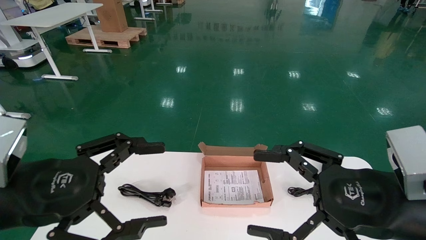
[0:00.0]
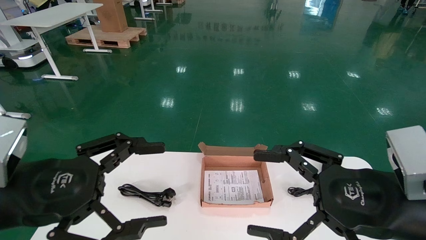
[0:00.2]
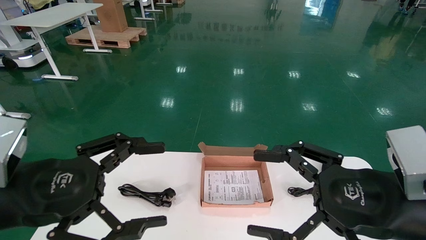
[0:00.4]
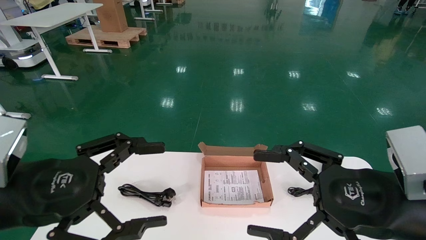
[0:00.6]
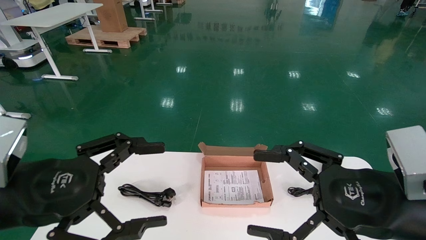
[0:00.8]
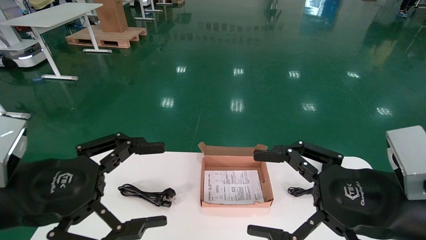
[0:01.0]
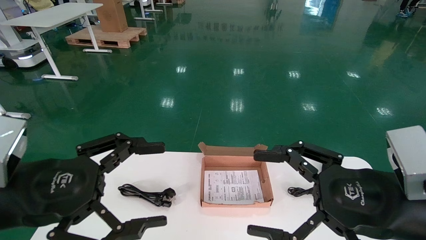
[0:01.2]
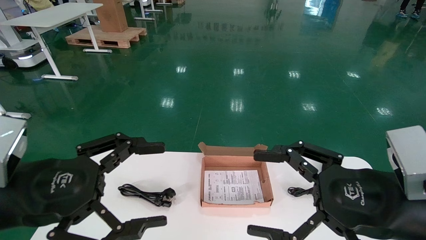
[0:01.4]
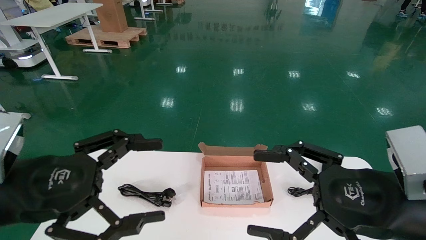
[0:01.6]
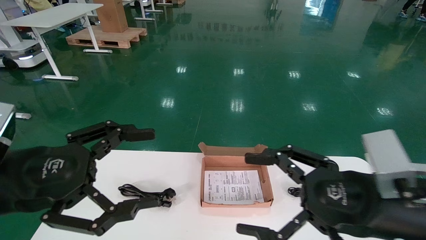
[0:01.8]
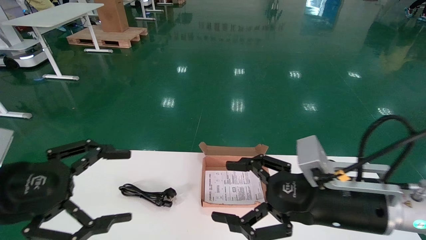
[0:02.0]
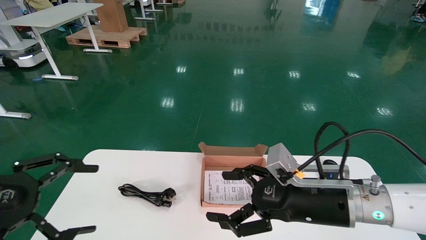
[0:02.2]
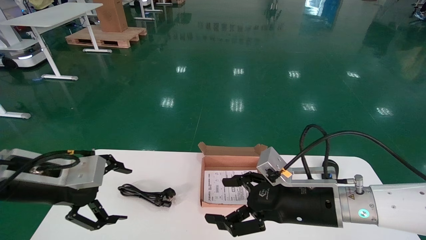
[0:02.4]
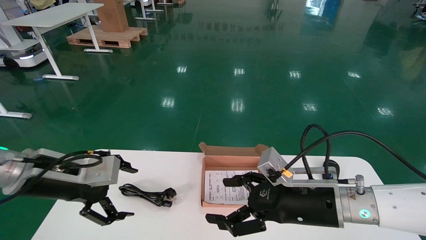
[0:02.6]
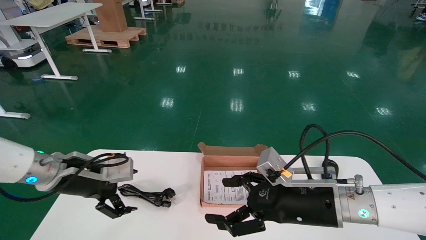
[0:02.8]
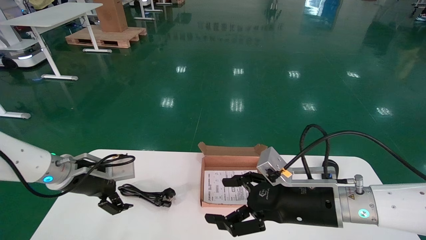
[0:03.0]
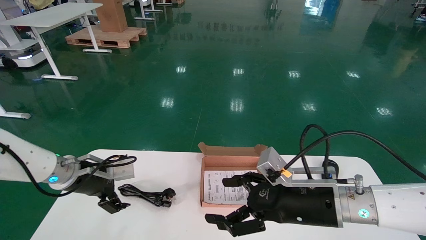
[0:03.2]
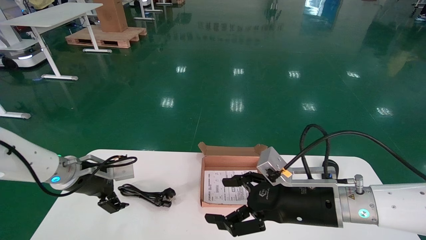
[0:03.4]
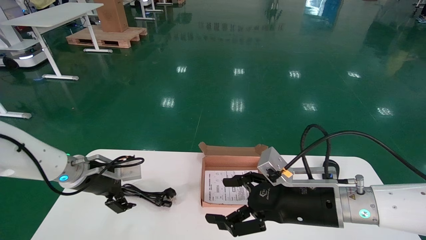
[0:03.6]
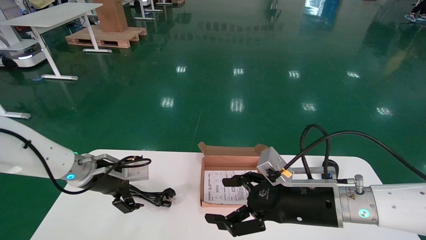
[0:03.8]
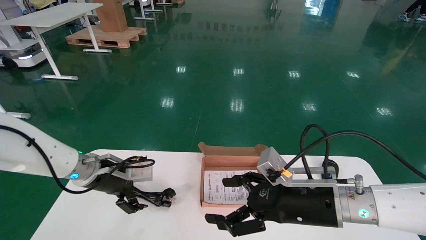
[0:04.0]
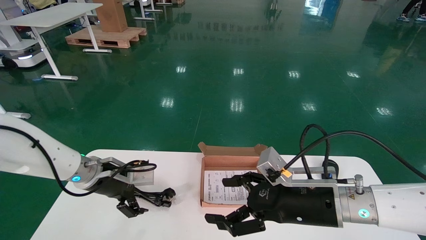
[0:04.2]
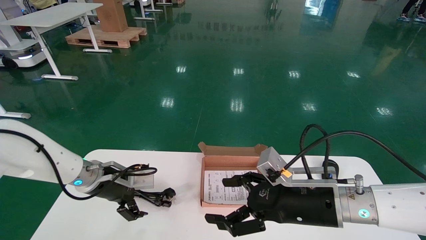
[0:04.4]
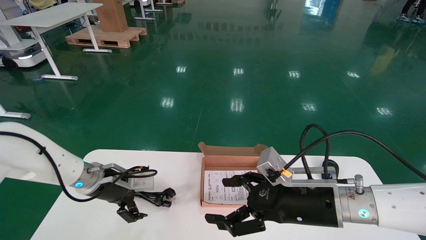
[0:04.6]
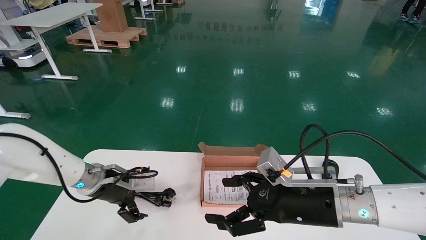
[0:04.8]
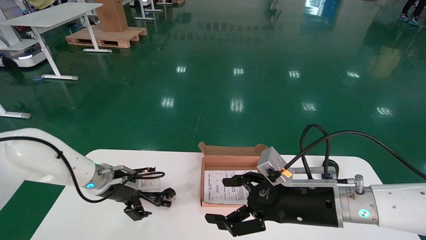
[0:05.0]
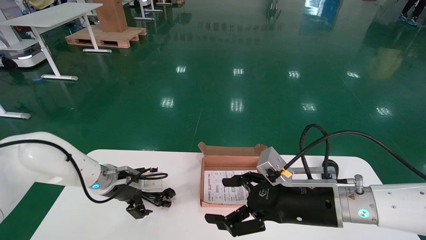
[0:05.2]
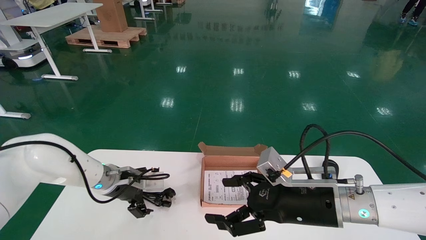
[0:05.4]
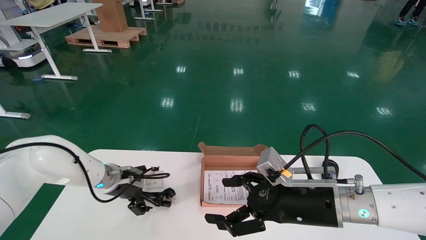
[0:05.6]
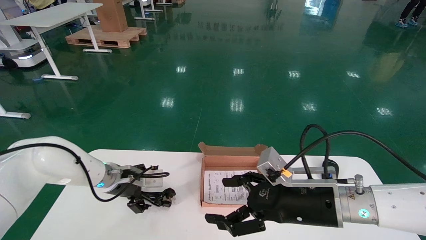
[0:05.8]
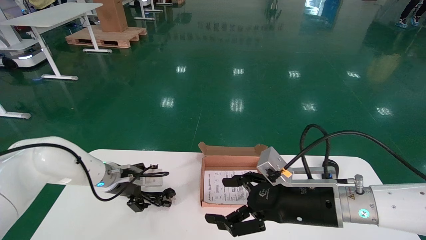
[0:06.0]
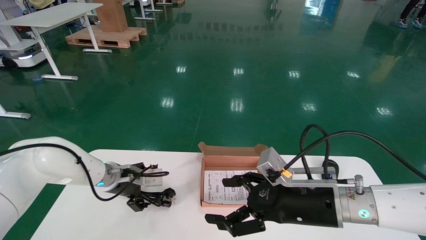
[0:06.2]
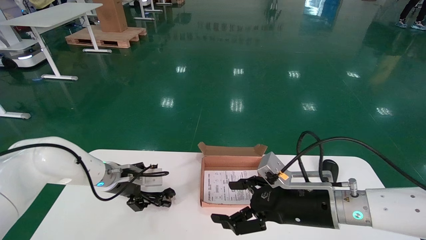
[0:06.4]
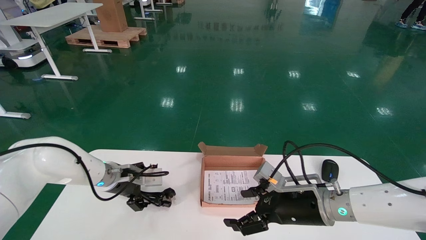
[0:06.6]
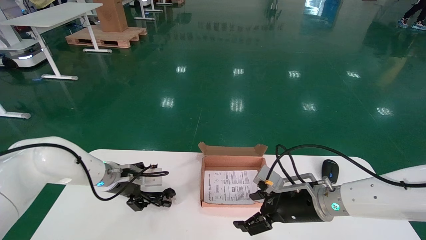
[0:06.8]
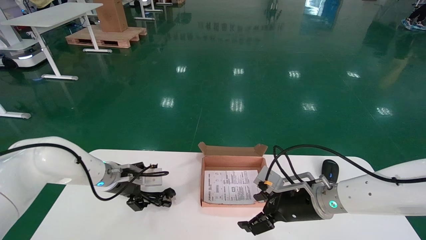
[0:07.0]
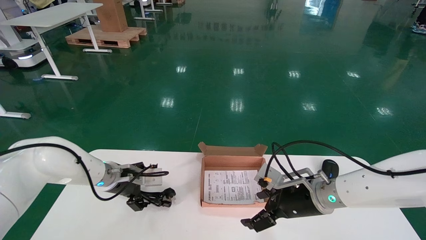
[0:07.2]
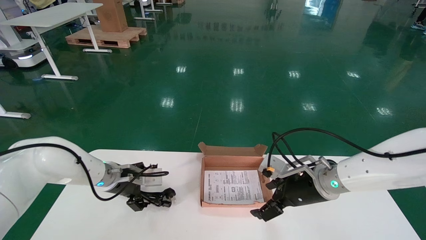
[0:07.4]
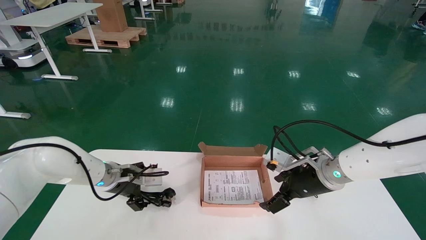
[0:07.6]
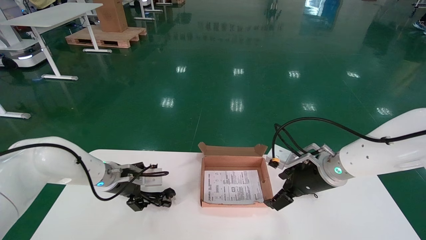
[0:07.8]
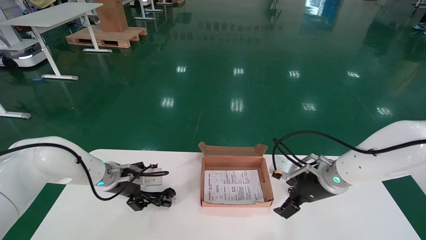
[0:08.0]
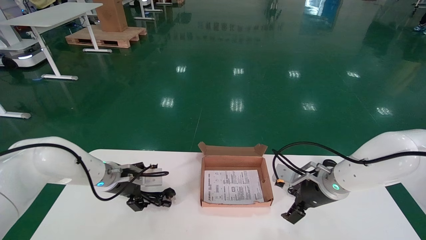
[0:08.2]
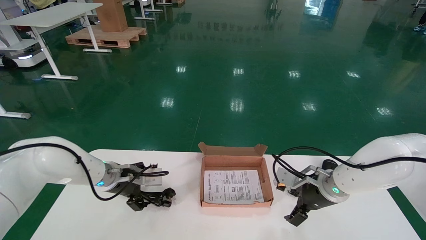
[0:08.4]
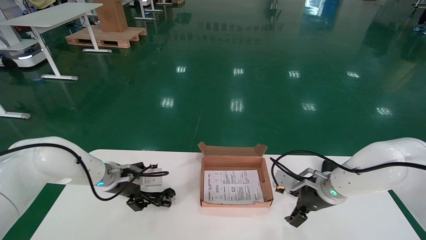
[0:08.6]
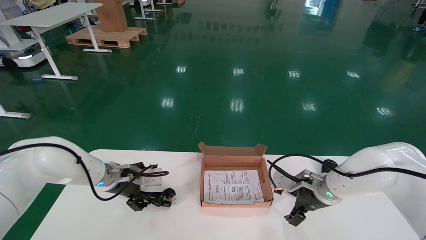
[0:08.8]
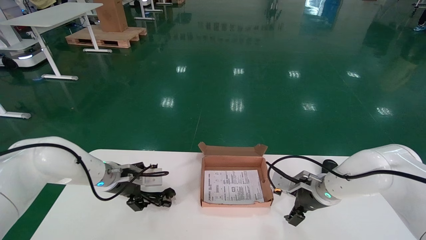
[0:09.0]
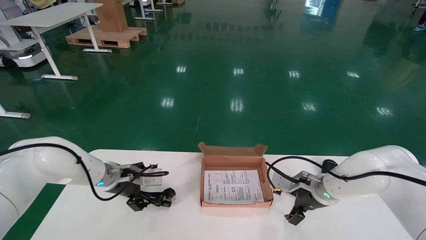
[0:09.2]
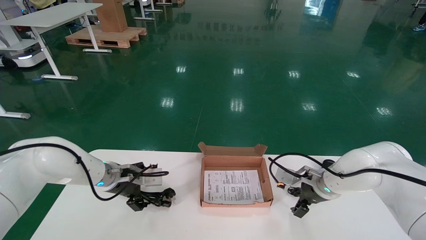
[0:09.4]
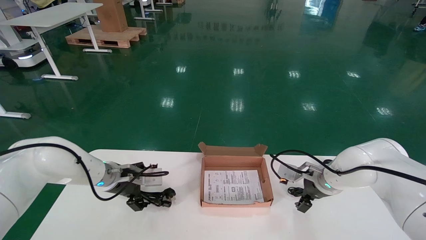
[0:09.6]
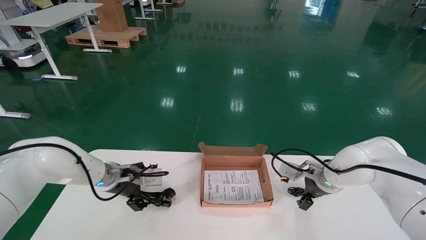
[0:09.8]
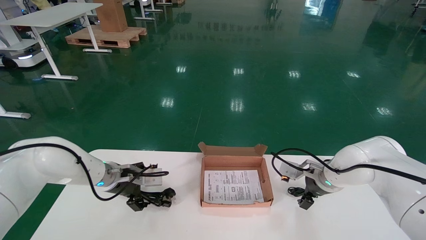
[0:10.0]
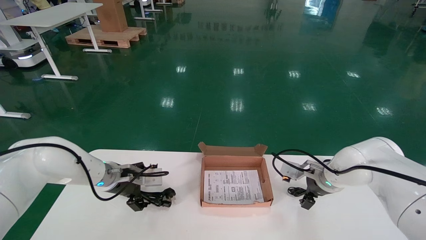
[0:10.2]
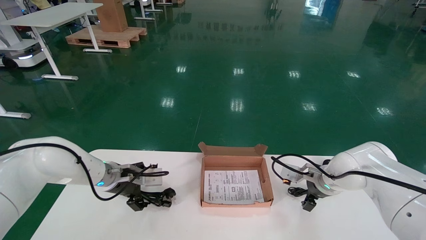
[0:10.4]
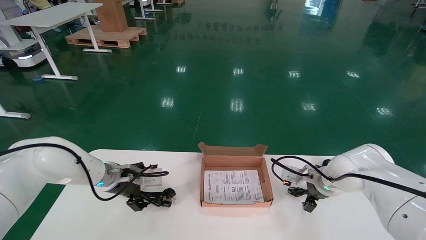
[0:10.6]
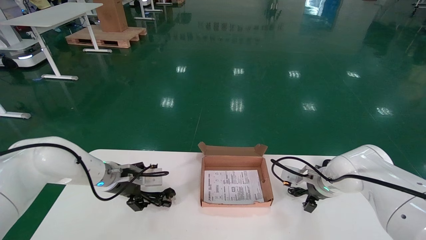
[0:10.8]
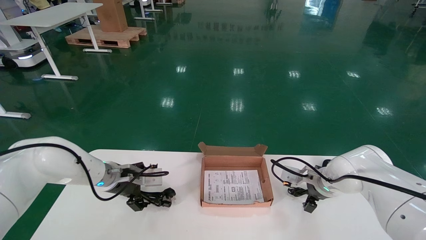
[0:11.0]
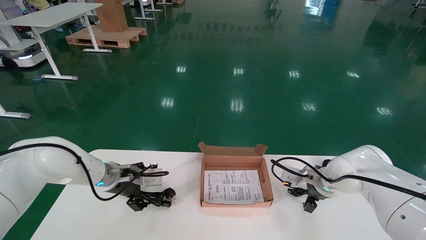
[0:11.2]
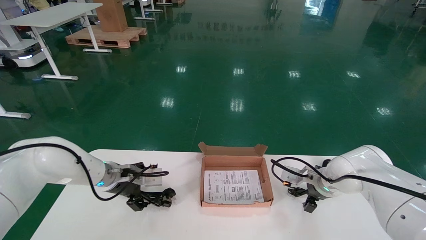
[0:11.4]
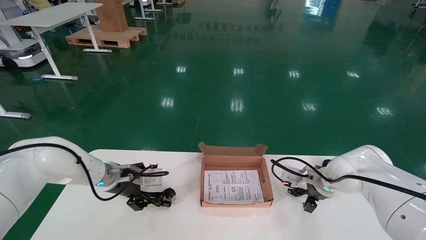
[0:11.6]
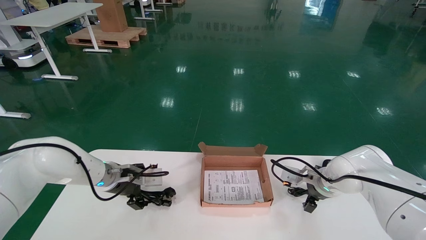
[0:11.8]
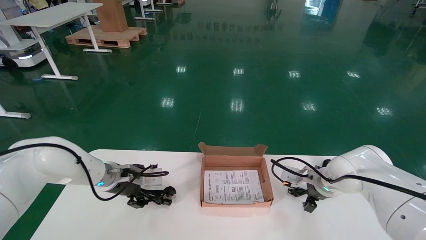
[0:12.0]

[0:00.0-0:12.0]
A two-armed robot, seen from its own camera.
0:00.0 to 0:01.6: Both grippers stay about where they are.
0:01.6 to 0:03.0: The right gripper travels forward, downward and to the left by some 15 cm; the left gripper shifts about 5 cm to the left.
0:03.0 to 0:04.4: The left gripper moves forward and downward, approximately 20 cm.
0:04.4 to 0:06.0: The left gripper moves roughly 5 cm.
0:06.0 to 0:07.6: The right gripper moves approximately 5 cm.
0:07.6 to 0:09.0: The right gripper goes roughly 5 cm forward.
0:09.0 to 0:10.4: The right gripper shifts by some 5 cm.
0:10.4 to 0:12.0: The grippers make only small movements.

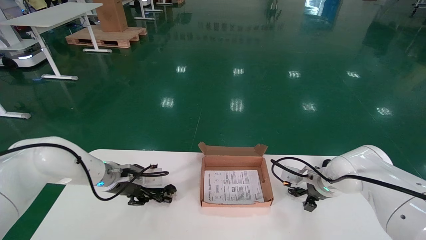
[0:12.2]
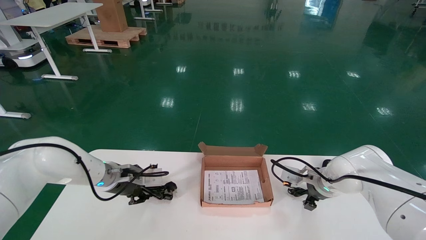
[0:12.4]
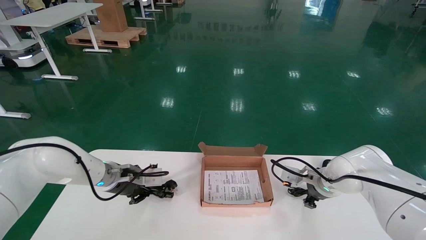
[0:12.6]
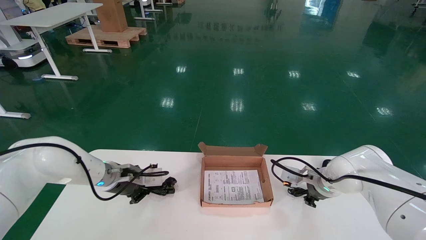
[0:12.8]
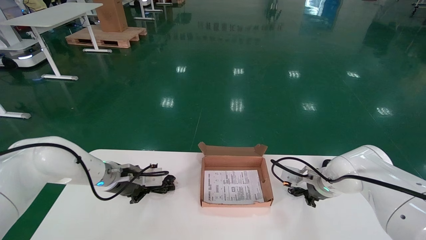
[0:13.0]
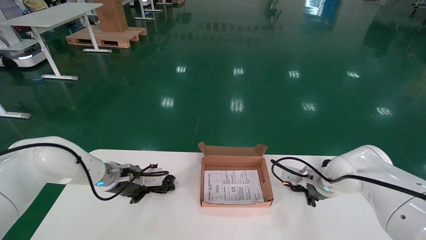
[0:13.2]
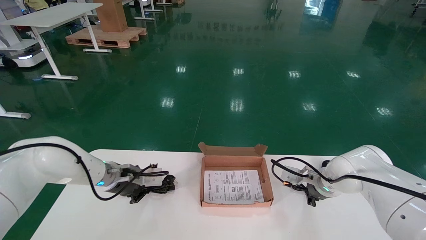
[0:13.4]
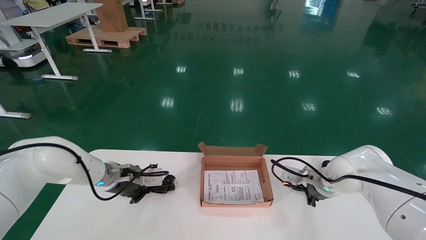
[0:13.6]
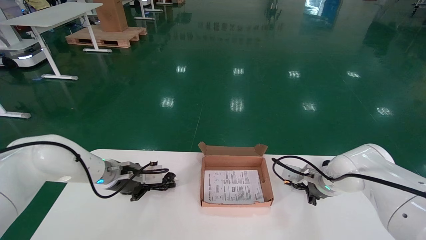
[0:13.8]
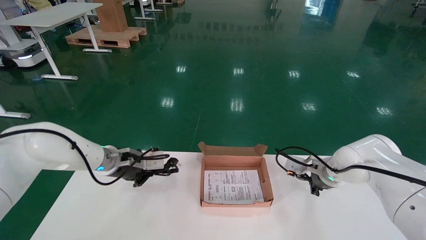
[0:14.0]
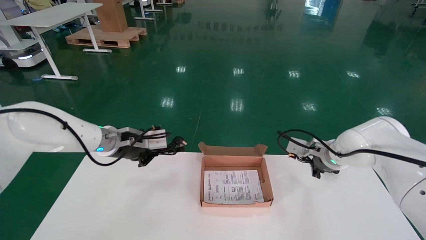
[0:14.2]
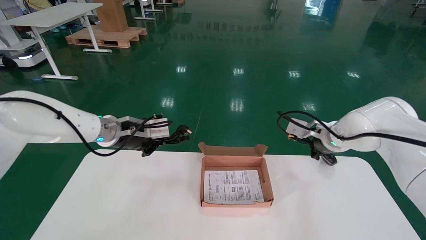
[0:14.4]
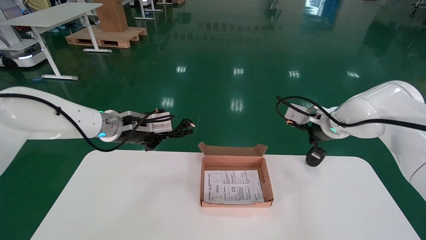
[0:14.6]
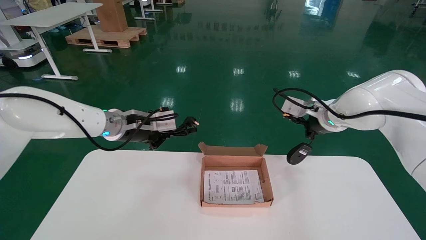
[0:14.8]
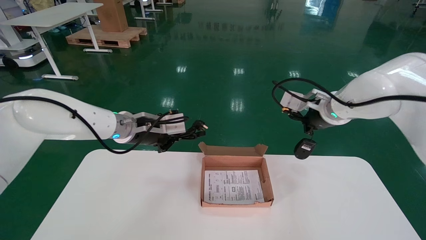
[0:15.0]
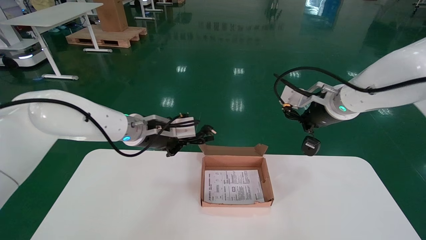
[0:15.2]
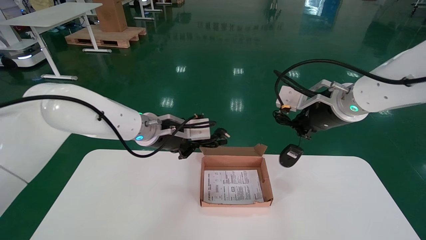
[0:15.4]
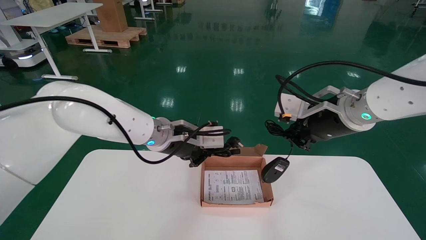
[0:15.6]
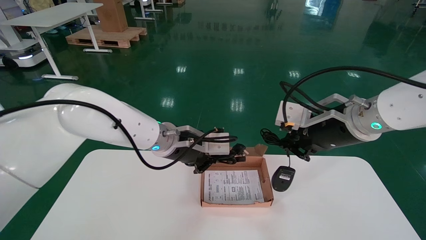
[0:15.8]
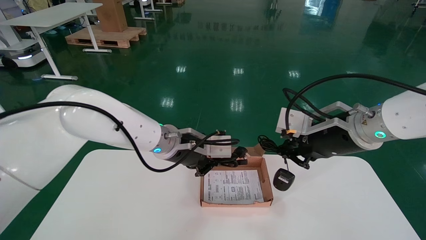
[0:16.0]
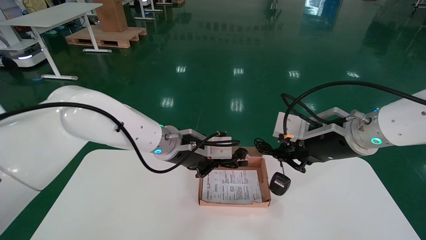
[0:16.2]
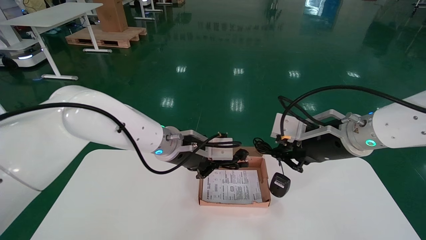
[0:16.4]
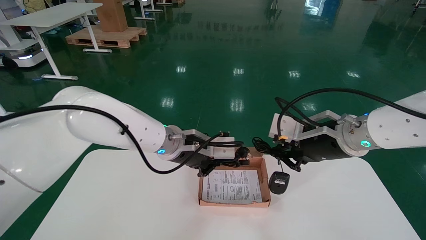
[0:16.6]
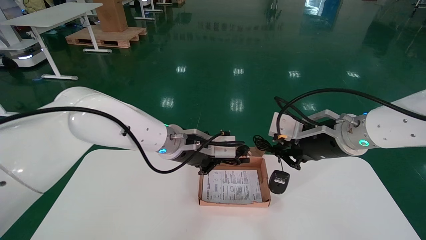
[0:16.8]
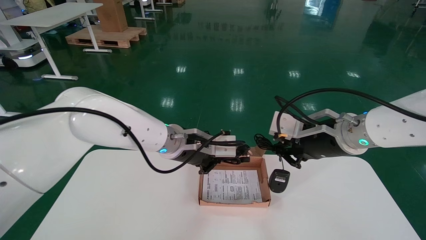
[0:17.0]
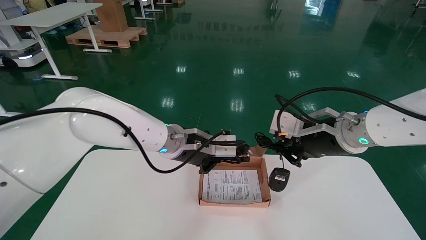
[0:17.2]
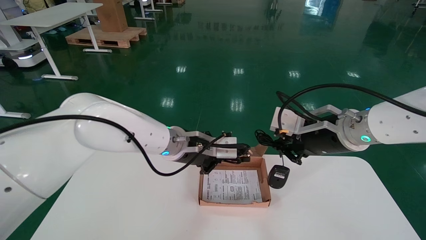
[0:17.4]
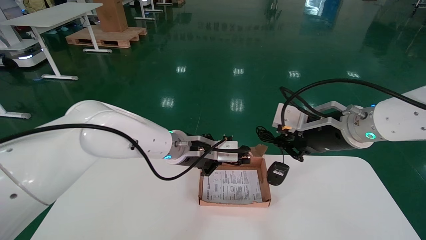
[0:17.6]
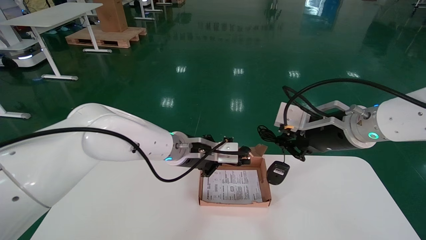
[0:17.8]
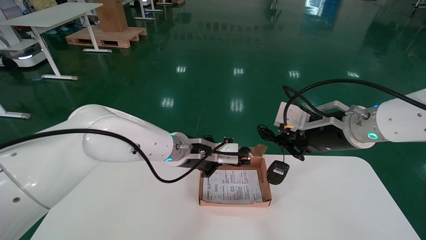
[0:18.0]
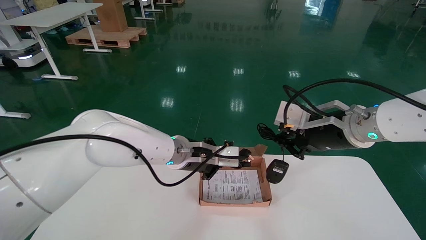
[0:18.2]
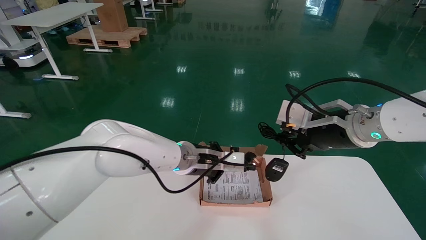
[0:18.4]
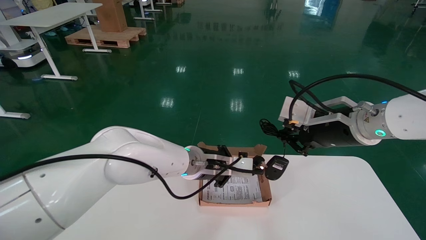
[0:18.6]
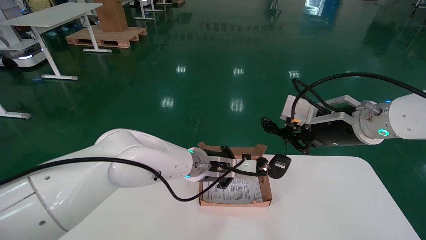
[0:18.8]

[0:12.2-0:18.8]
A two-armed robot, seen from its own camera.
Step, 0:12.2 to 0:14.6: Grab and pick up the mouse and power cord from the accessory packaging area.
0:12.2 to 0:13.8: The left gripper closes up.
0:13.8 to 0:15.4: The grippers both shift upward by approximately 10 cm. The right gripper closes up.
0:15.4 to 0:17.2: The right gripper moves backward and upward, some 15 cm, while the left gripper is displaced to the right by about 15 cm.
